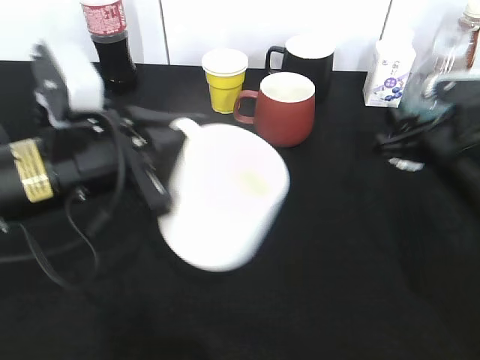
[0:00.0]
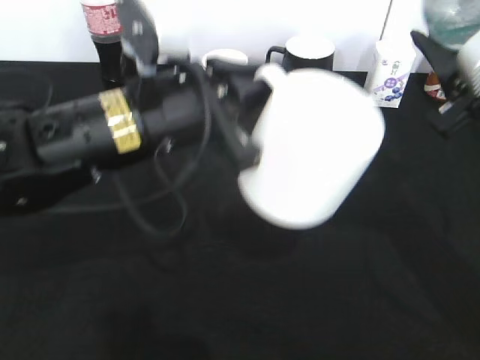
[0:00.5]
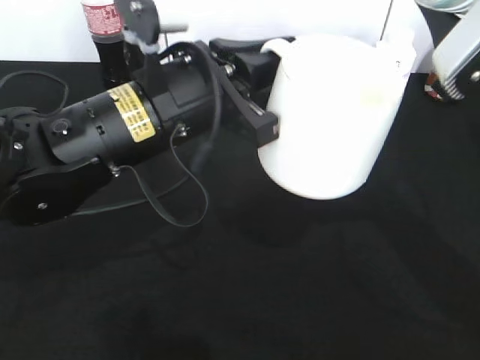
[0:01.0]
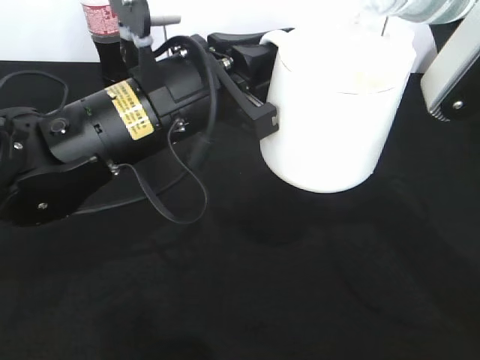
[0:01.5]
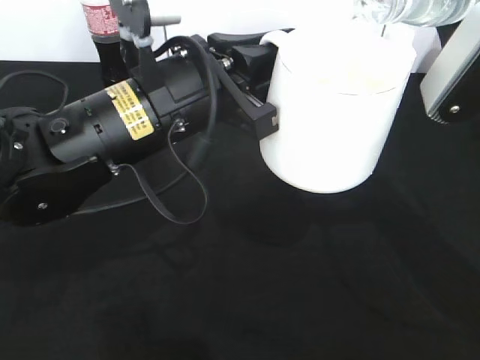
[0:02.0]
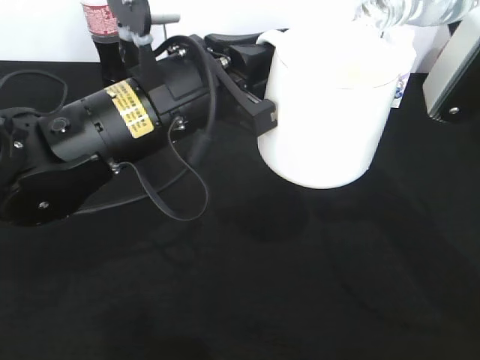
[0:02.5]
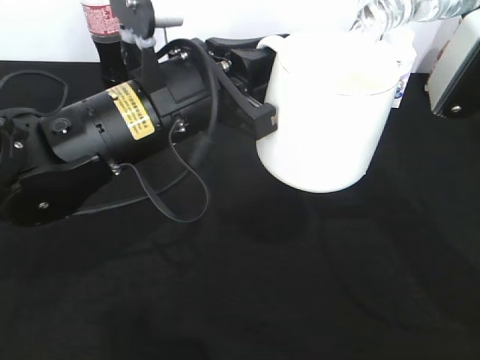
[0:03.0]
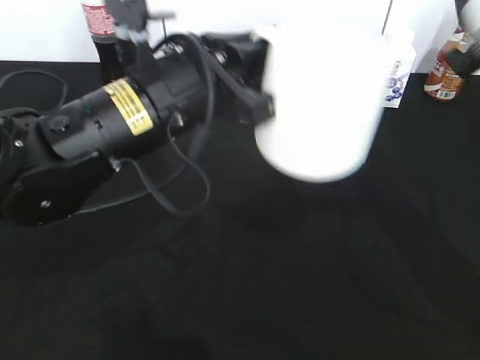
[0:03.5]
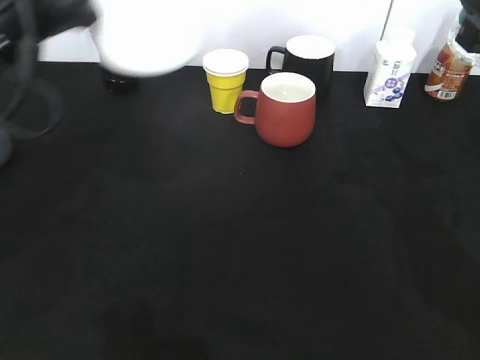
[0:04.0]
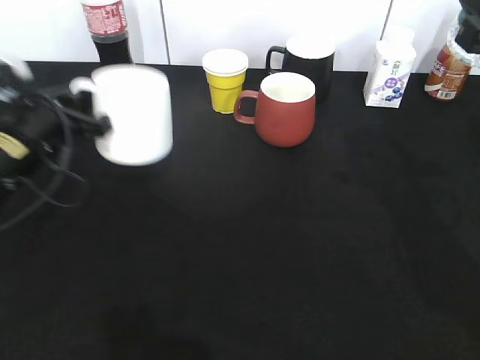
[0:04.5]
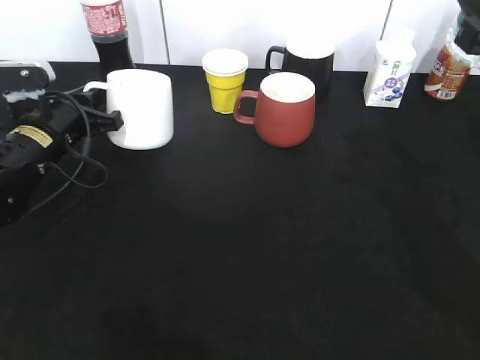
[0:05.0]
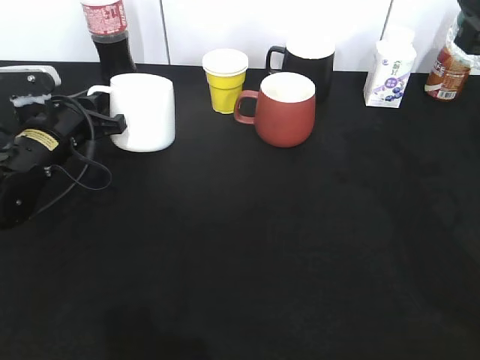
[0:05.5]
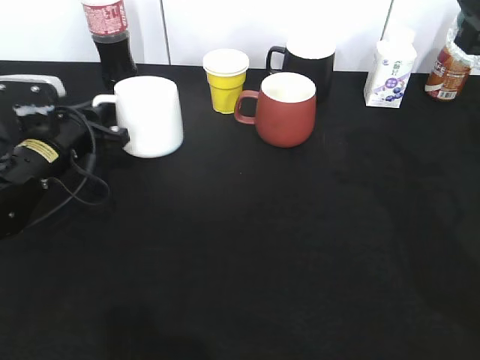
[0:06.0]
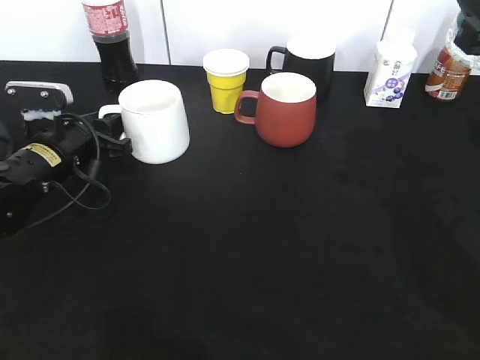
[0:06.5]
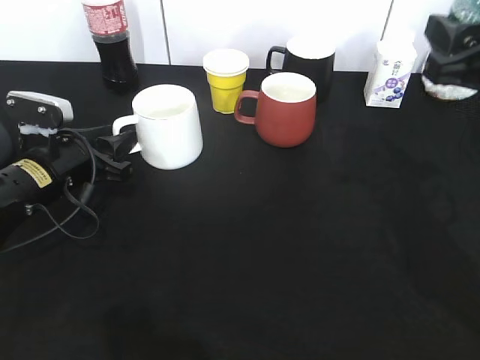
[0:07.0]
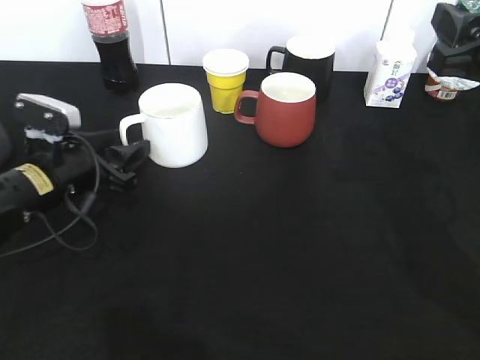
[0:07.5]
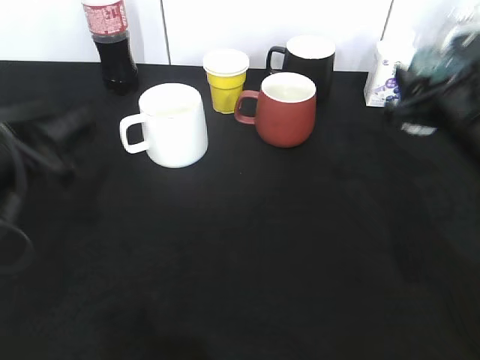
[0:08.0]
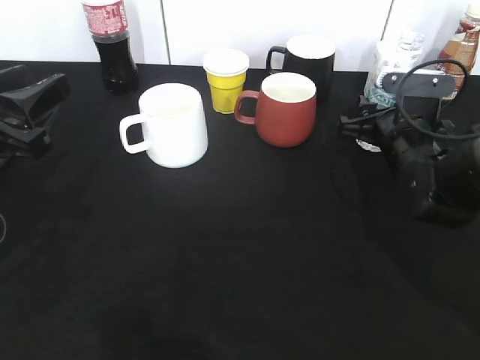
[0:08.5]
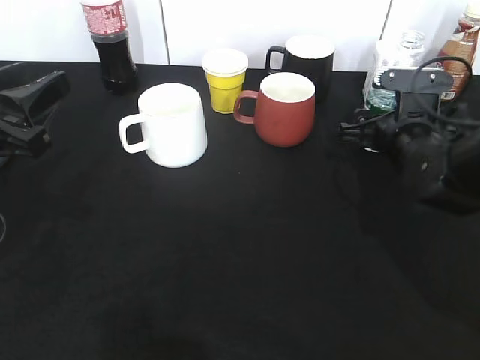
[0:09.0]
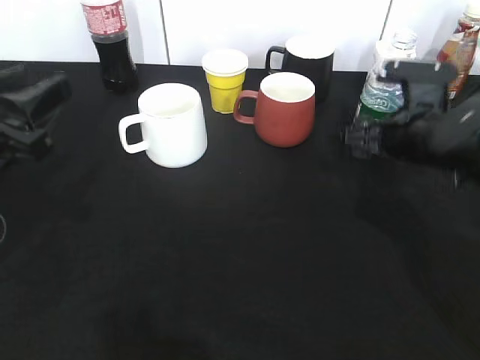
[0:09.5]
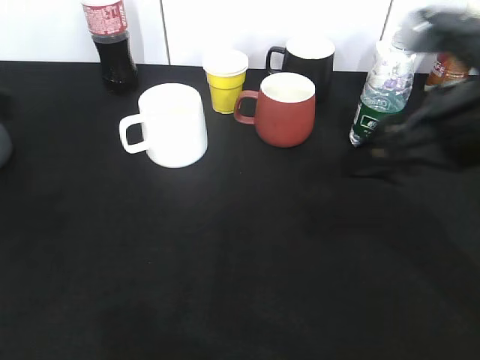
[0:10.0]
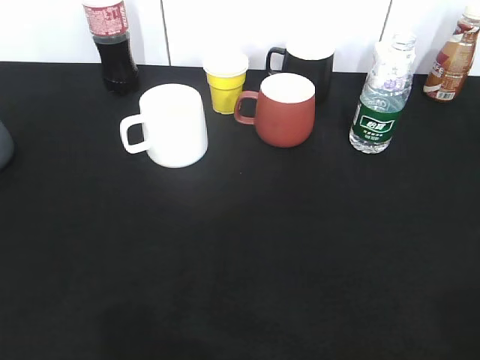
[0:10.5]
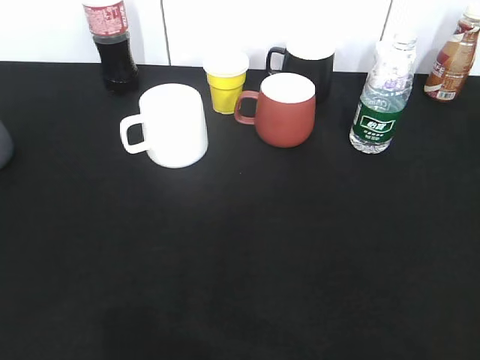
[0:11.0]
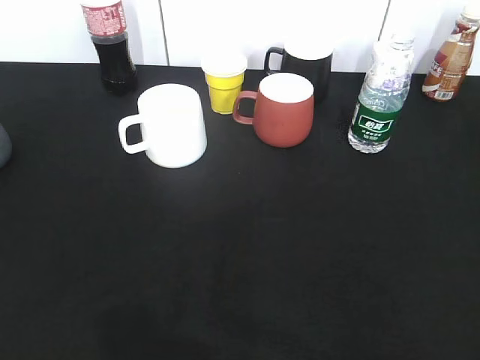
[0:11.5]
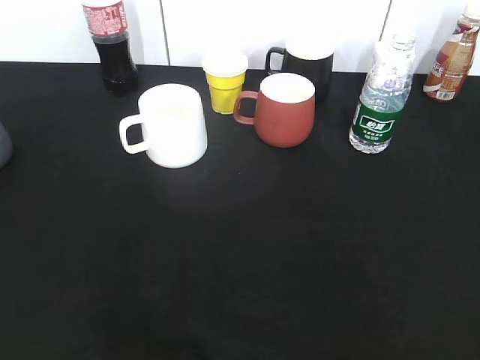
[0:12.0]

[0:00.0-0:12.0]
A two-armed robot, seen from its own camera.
Step, 0:00.0 to 0:03.5: Pour the water from bottle to cup with right gripper.
Step, 0:04.0 to 0:07.5: Place the white cup on the table with left gripper.
Step, 0:08.0 to 0:09.0: Place the water bottle on the table with right gripper.
0:00.0 to 0:02.0: The left gripper heads to the right, covering some 10 cm, while the right gripper moves upward, roughly 15 cm.
0:02.0 to 0:04.0: The left gripper moves to the left, about 15 cm.
0:04.0 to 0:06.0: The left gripper travels downward and forward by roughly 20 cm.
0:06.0 to 0:08.0: The left gripper shifts some 15 cm backward and upward, and opens up; the right gripper shifts roughly 10 cm downward and forward.
0:08.0 to 0:10.0: The right gripper shifts some 10 cm upward and backward, and opens up; the left gripper moves upward and backward, approximately 15 cm.
0:10.0 to 0:12.0: The left gripper heads backward and to the left, covering approximately 20 cm, while the right gripper heads backward and to the right, covering about 25 cm.
